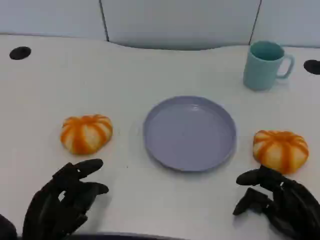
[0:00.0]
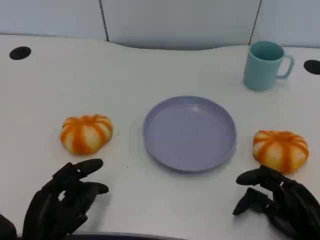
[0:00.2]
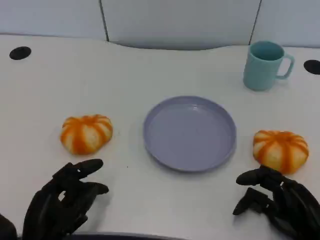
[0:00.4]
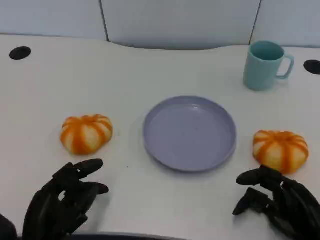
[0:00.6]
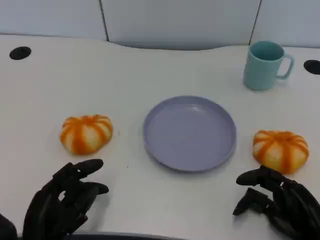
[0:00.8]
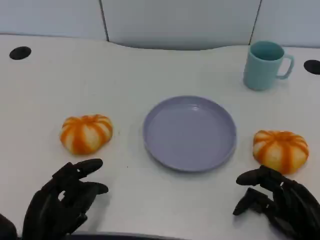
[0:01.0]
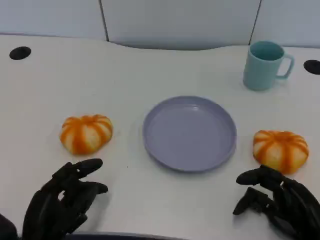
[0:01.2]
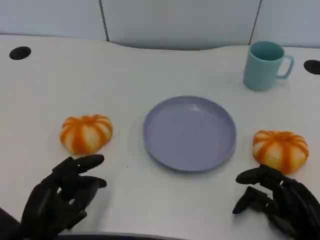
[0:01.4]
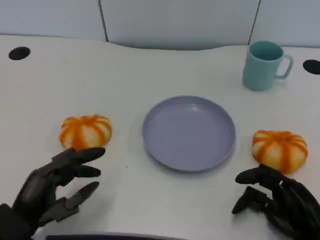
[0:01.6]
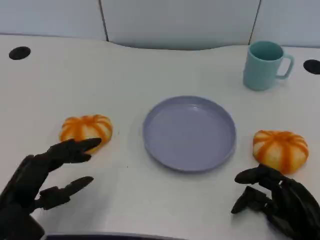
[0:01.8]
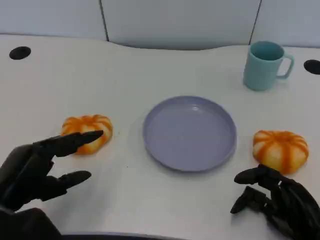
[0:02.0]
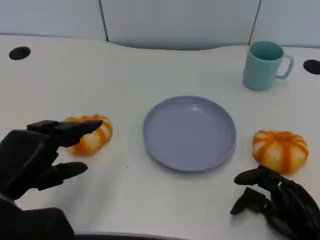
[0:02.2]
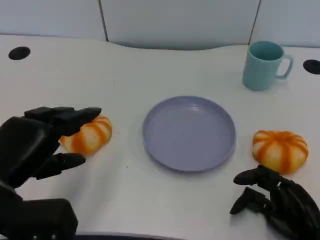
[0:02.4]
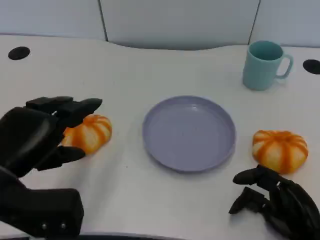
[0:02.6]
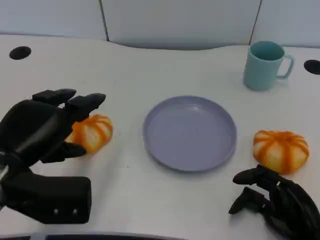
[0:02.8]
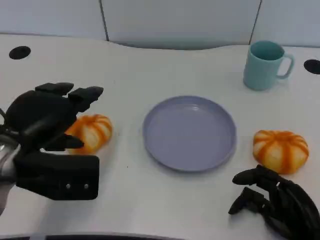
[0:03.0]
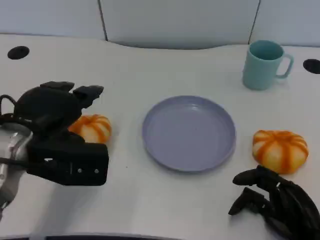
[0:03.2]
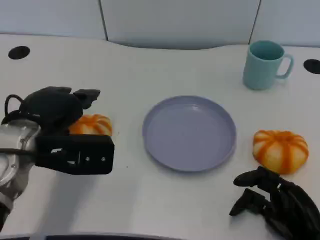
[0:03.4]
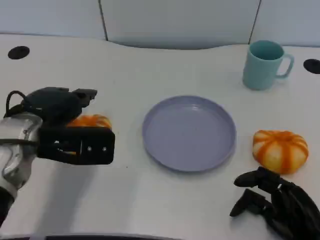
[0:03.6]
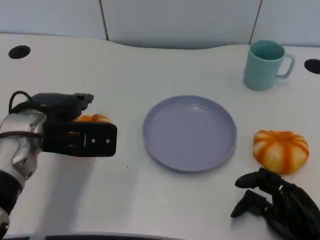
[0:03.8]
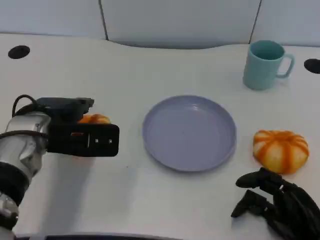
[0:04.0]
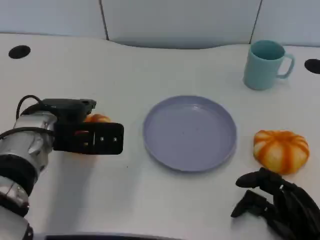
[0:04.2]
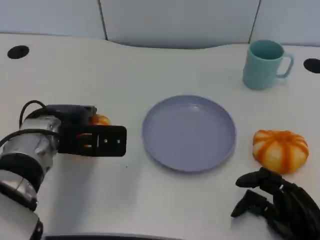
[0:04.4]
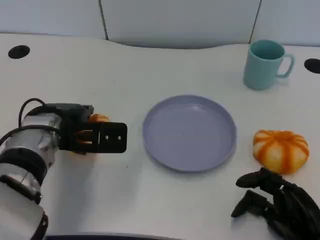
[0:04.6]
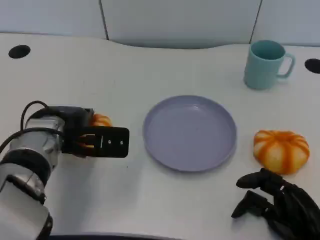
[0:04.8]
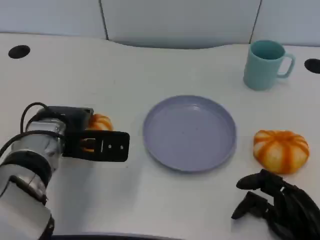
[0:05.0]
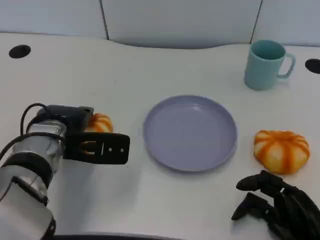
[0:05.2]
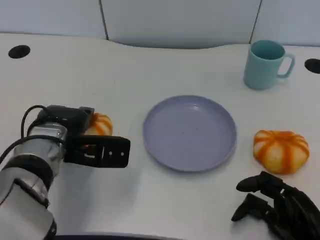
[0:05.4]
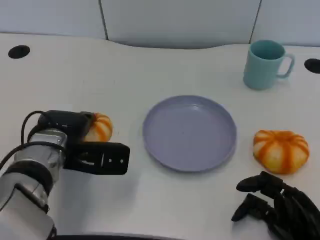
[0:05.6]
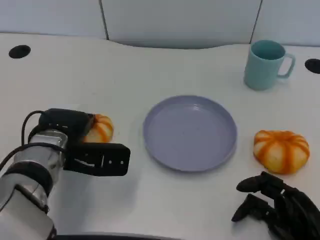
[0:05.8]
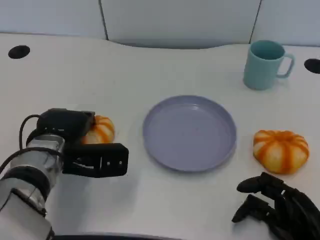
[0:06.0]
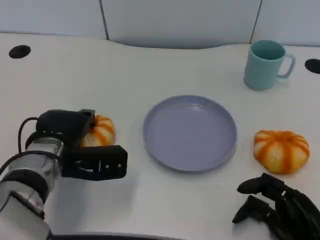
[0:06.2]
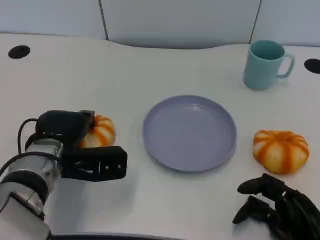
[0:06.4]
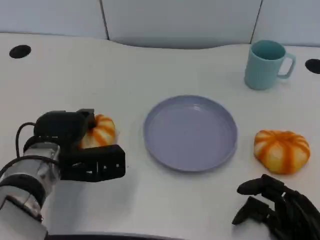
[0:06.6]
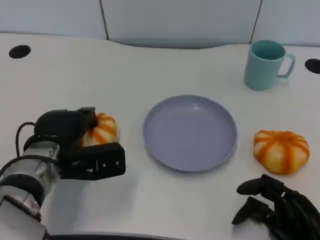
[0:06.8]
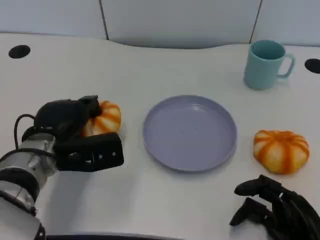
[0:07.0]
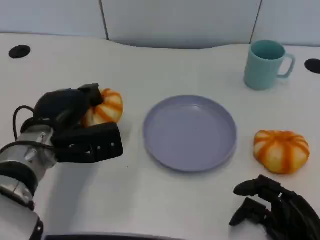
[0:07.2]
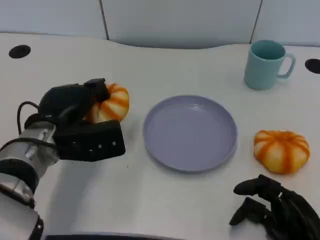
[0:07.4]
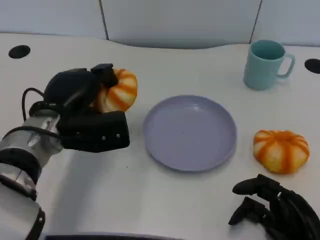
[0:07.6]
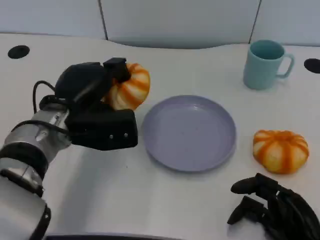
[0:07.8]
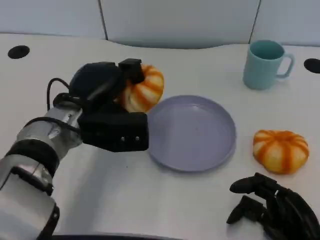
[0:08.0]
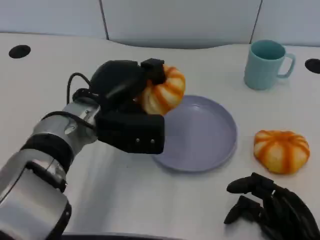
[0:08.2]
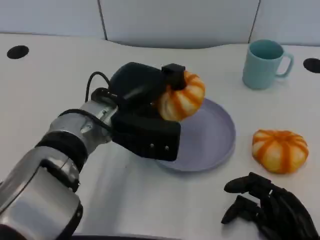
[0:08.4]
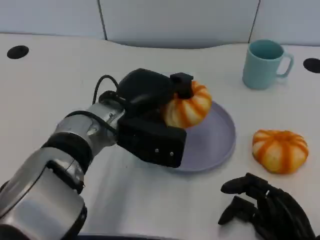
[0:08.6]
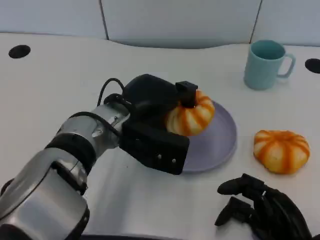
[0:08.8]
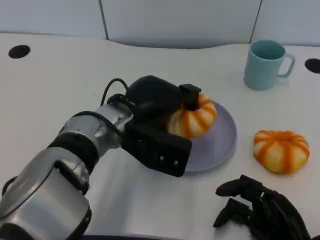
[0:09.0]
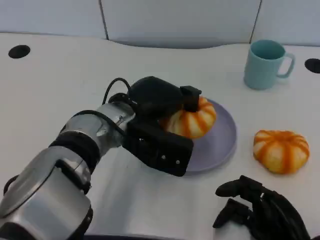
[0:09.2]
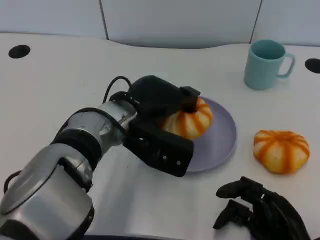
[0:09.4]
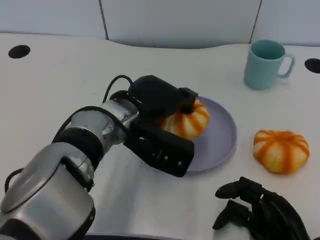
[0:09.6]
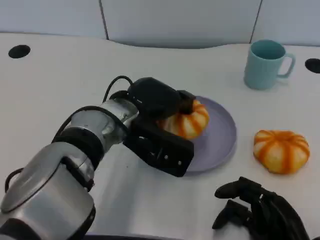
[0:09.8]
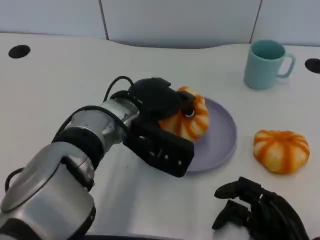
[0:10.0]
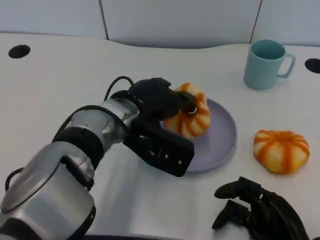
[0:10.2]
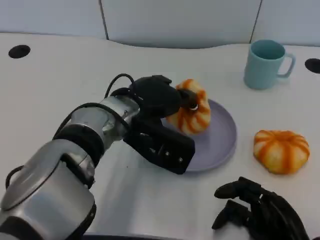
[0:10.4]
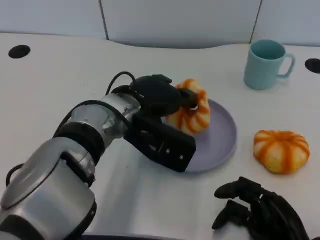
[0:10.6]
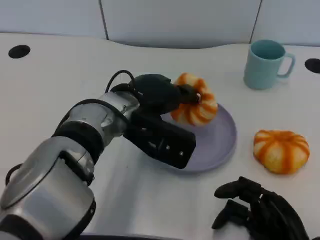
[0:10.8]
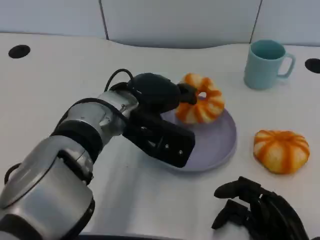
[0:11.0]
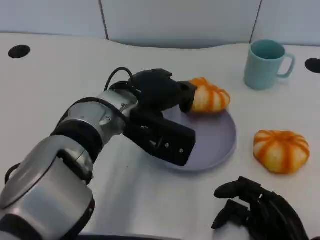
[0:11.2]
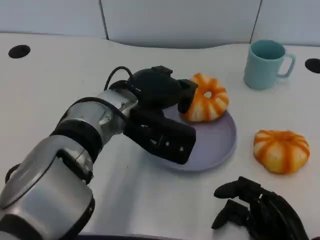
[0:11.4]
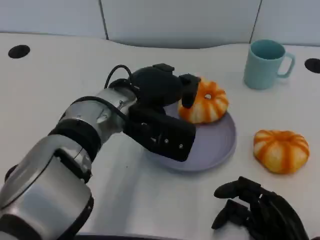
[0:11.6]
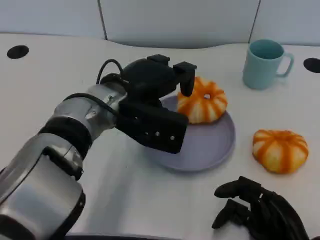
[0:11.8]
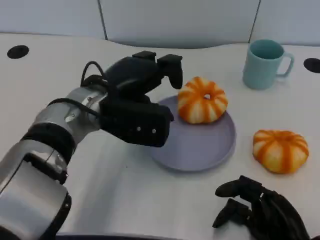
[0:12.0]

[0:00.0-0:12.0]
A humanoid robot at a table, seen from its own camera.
Task of the whole recording: Grasp the bread from the table and place it into the plate.
0:00.0 to 0:01.6: The left hand changes place by some 5 cm.
0:01.6 to 0:03.0: The left hand goes some 15 cm upward and forward.
0:03.0 to 0:04.4: The left hand travels forward by roughly 5 cm.
0:04.4 to 0:06.0: The hands make only small movements.
0:07.6 to 0:09.0: The left hand moves to the right, some 10 cm.
0:09.0 to 0:10.4: The hands stay close to where they were, moving slightly.

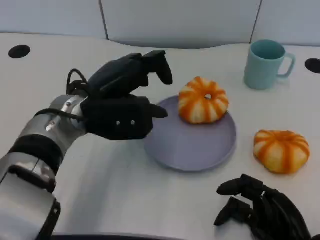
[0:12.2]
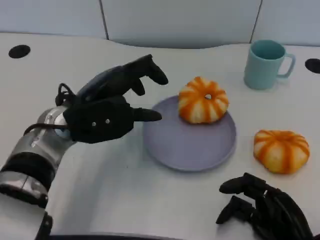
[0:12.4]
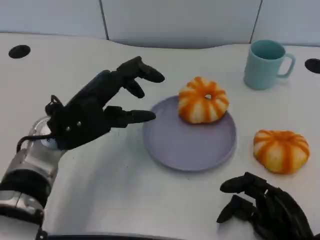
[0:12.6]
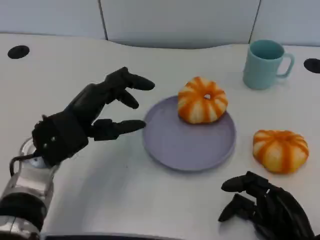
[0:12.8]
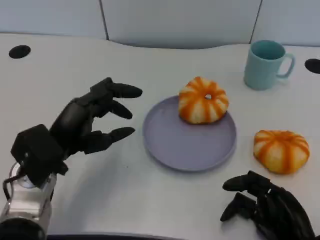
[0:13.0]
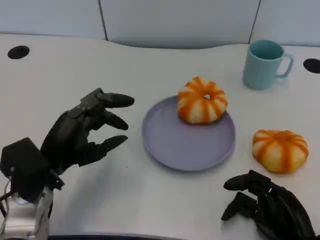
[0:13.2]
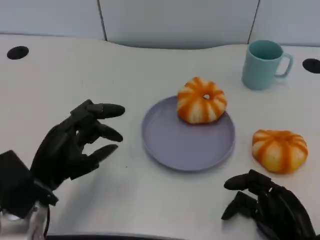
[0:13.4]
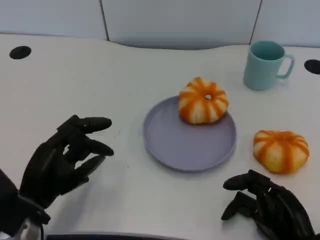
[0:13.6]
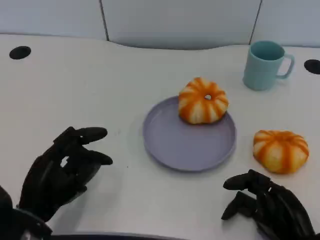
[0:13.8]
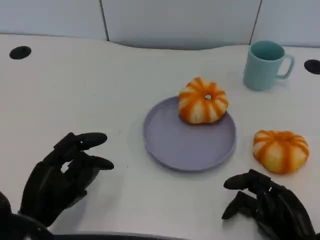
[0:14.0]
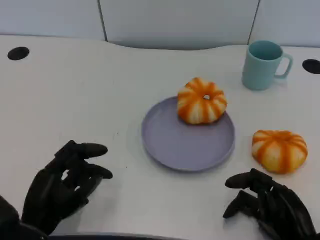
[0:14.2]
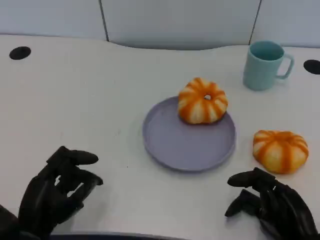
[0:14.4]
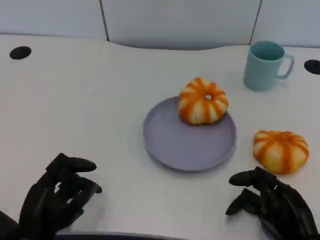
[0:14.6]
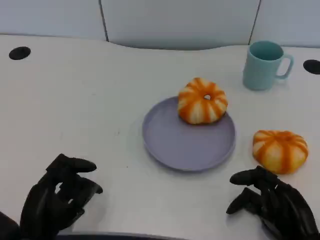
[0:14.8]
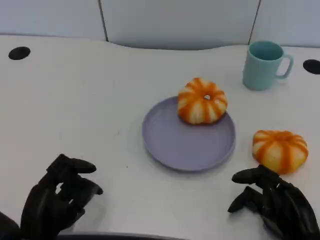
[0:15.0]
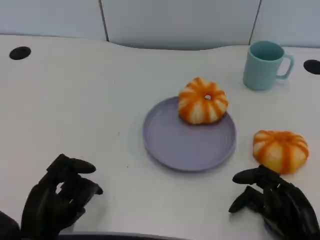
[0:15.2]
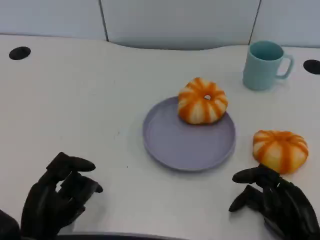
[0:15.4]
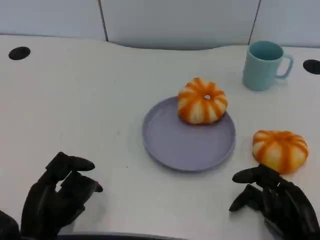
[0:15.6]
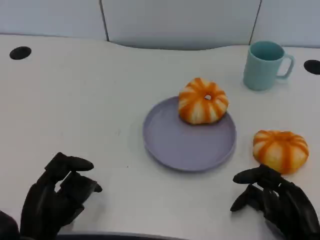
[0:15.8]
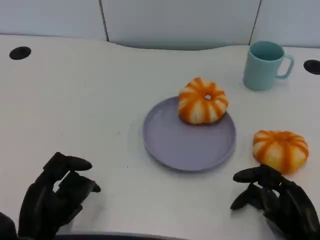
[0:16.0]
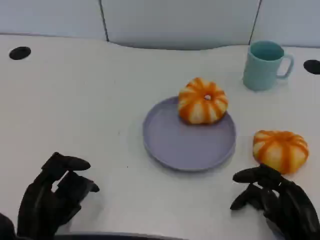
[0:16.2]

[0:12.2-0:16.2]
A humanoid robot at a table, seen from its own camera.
Task of the whole recording: Grasp the bread from the table and place it into the plate.
0:12.2 to 0:13.6: The left hand shifts about 15 cm backward, to the left and downward.
0:13.6 to 0:14.8: The left hand moves some 5 cm.
0:14.8 to 0:16.2: The hands stay close to where they were, moving slightly.

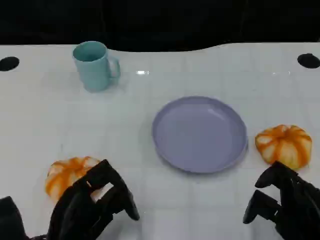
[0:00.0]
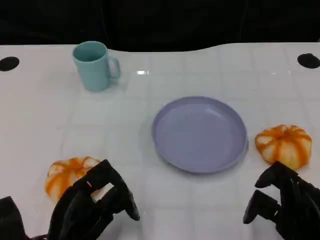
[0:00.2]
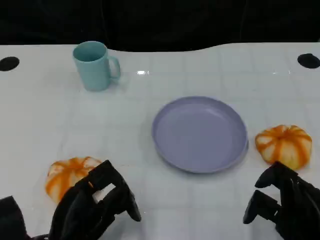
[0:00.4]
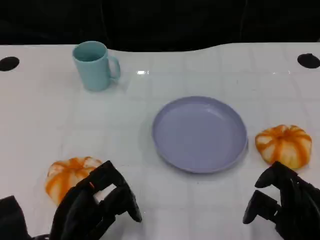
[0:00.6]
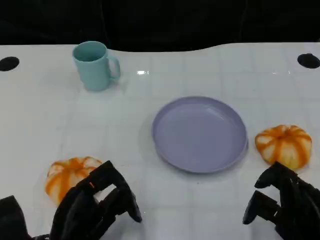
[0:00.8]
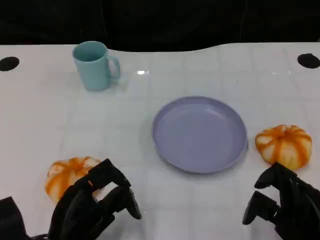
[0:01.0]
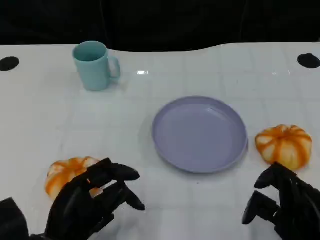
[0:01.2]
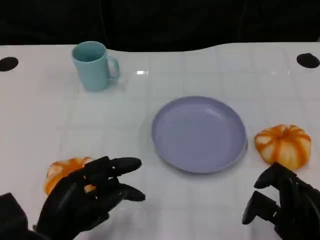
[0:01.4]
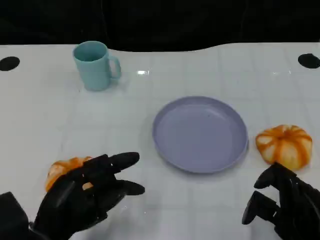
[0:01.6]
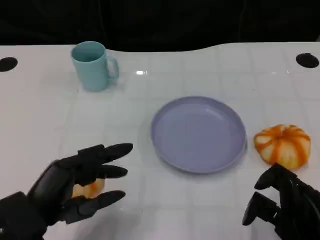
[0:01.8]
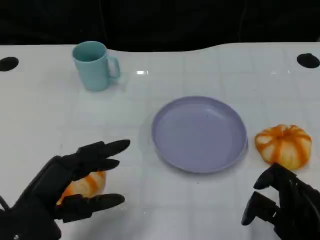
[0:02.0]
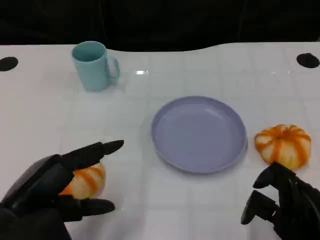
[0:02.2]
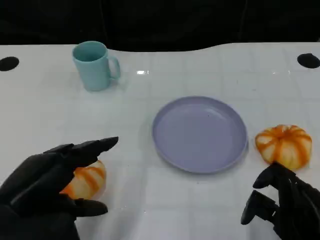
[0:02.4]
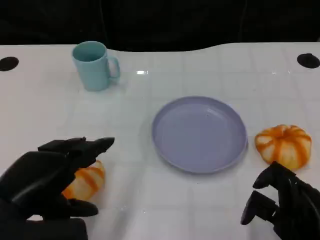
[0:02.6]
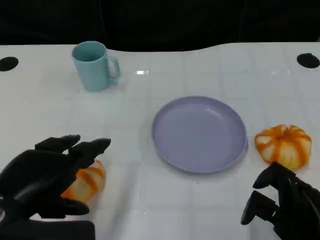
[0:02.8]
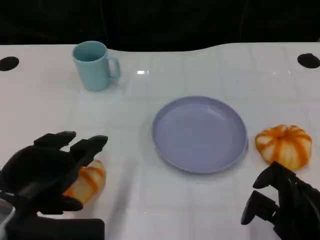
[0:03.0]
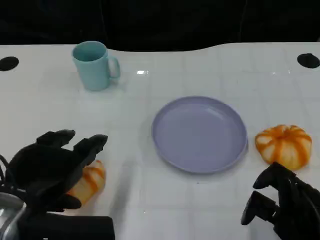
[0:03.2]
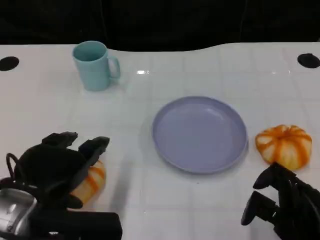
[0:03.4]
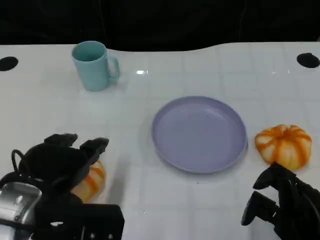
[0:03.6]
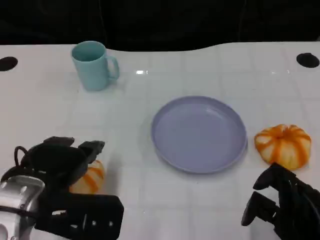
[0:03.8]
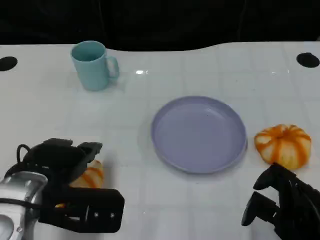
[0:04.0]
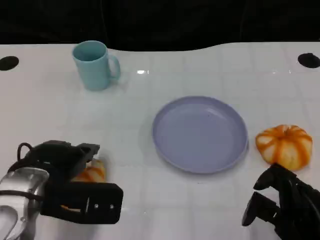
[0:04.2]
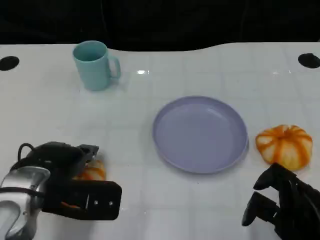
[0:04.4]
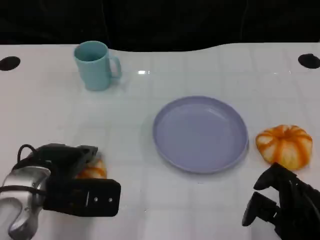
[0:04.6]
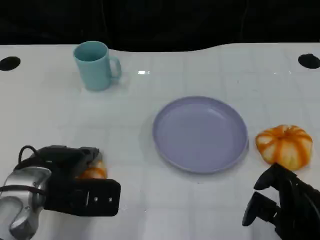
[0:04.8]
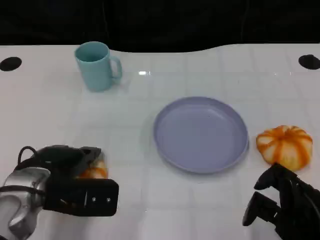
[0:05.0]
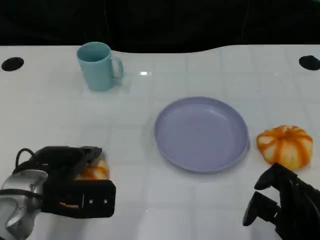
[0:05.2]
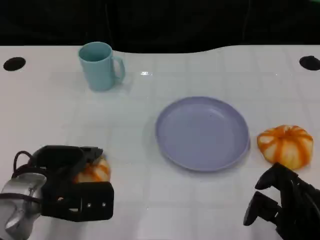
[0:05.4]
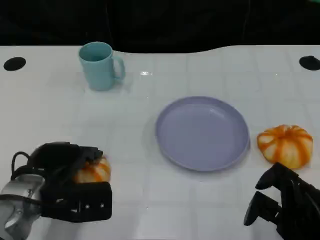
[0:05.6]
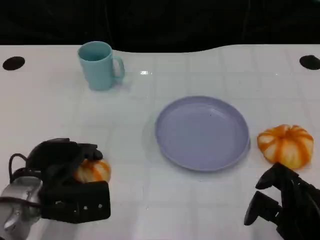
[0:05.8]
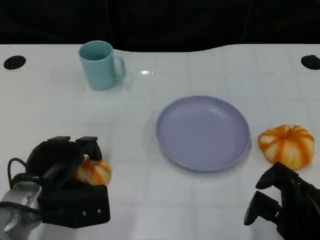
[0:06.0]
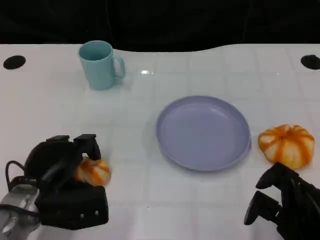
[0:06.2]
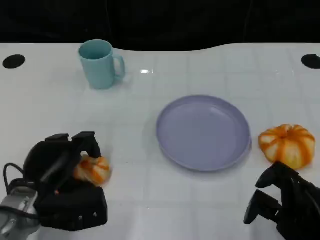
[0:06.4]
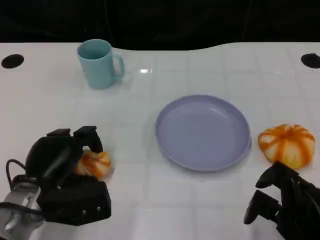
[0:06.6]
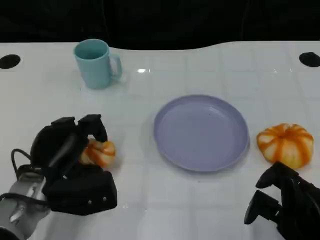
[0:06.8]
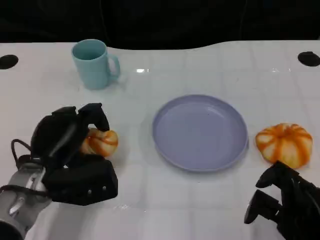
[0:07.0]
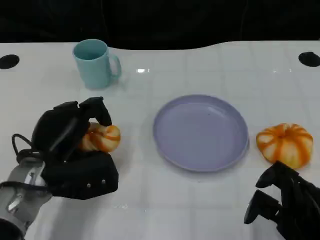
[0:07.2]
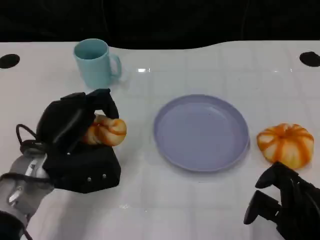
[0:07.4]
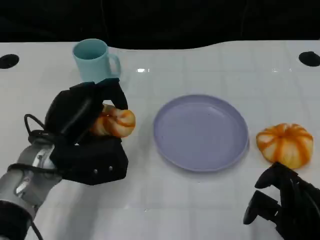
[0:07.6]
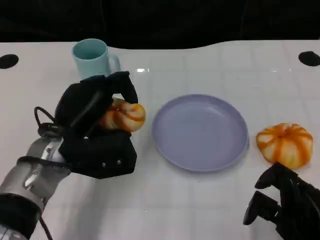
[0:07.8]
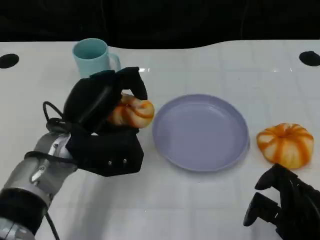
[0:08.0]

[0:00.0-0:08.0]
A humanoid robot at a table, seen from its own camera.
Task of the whole recording: Grasp the bread from the table and place it into the plate.
0:01.6 to 0:03.2: The left hand is displaced upward by roughly 10 cm.
0:03.2 to 0:04.8: The left hand goes roughly 10 cm forward and downward.
0:06.4 to 0:08.0: The left hand shifts about 10 cm upward and to the right.
